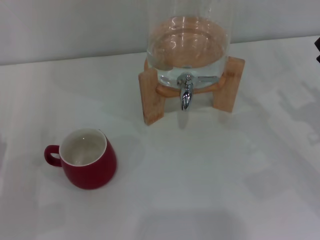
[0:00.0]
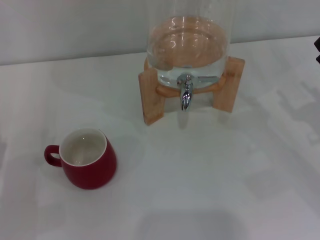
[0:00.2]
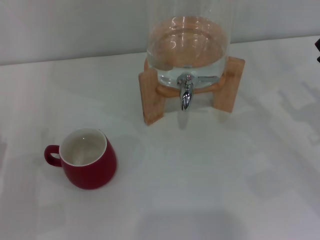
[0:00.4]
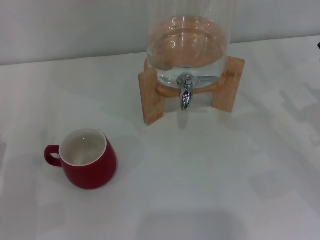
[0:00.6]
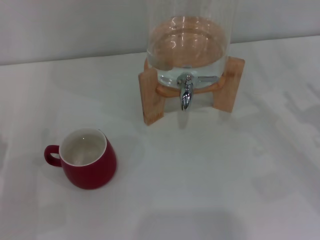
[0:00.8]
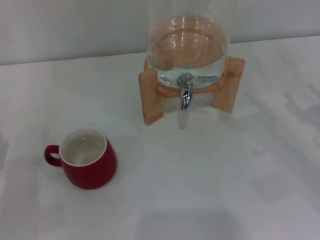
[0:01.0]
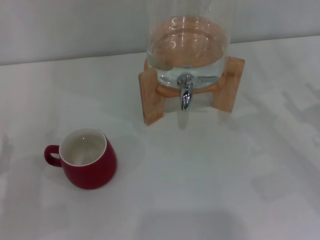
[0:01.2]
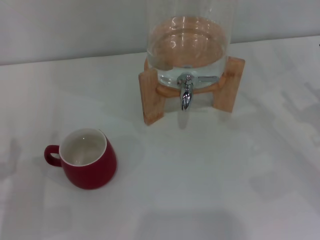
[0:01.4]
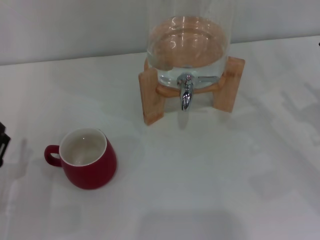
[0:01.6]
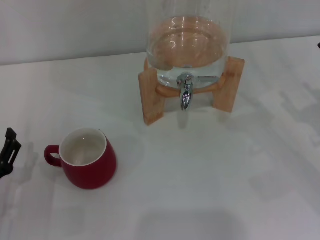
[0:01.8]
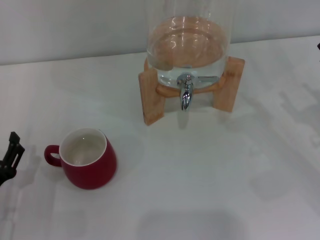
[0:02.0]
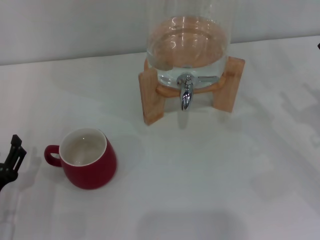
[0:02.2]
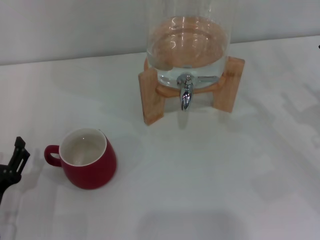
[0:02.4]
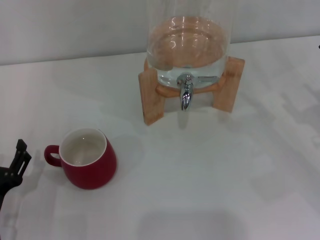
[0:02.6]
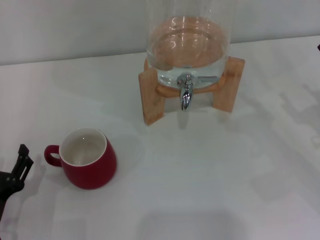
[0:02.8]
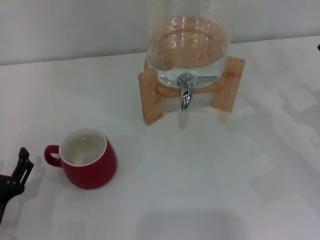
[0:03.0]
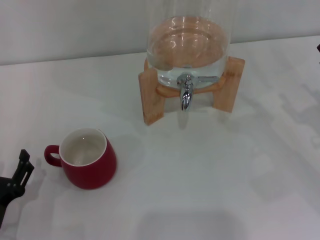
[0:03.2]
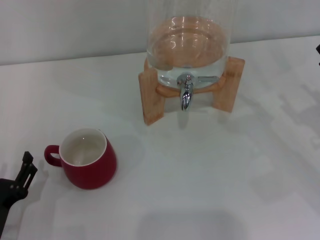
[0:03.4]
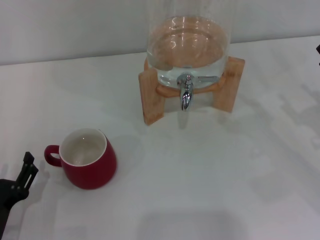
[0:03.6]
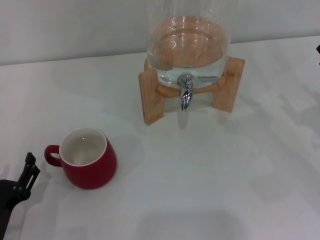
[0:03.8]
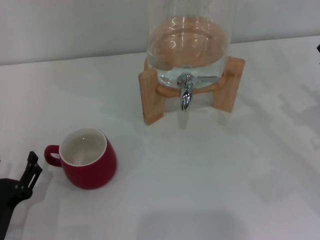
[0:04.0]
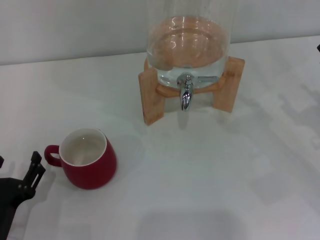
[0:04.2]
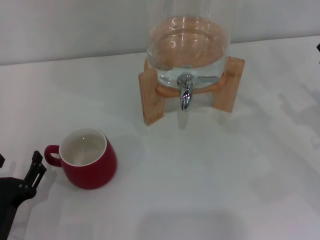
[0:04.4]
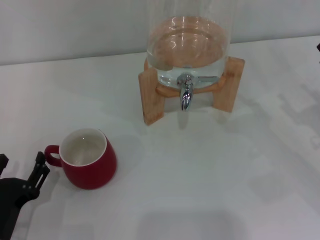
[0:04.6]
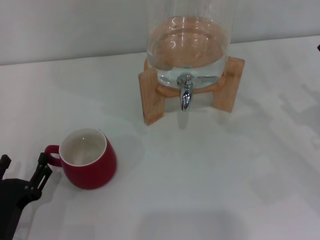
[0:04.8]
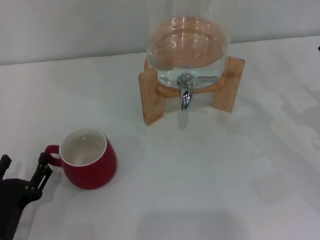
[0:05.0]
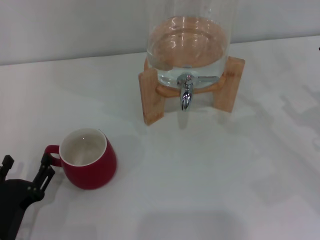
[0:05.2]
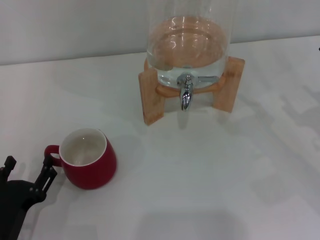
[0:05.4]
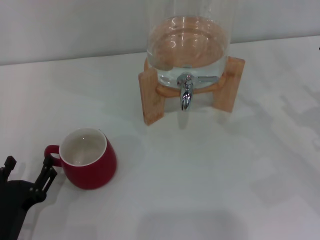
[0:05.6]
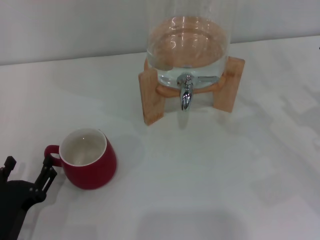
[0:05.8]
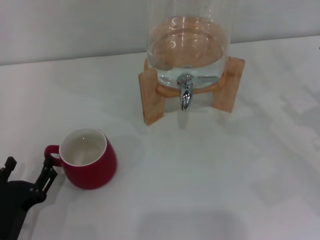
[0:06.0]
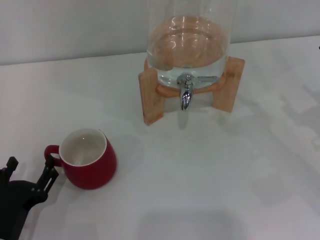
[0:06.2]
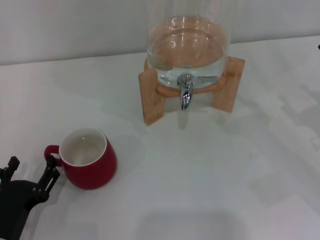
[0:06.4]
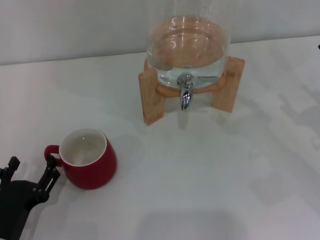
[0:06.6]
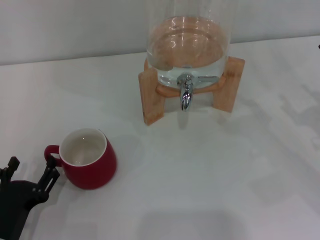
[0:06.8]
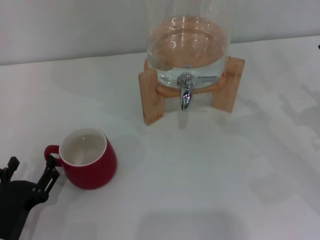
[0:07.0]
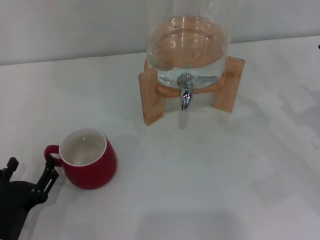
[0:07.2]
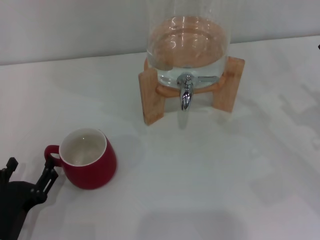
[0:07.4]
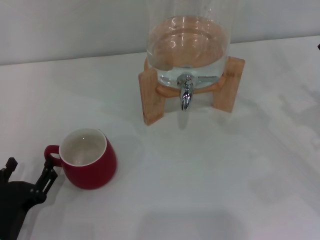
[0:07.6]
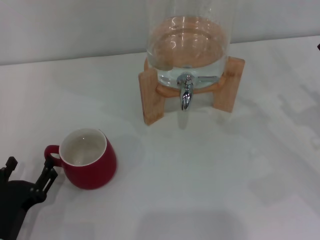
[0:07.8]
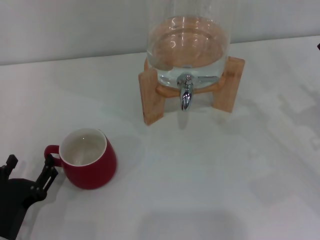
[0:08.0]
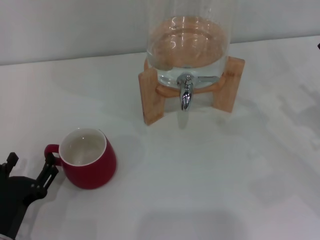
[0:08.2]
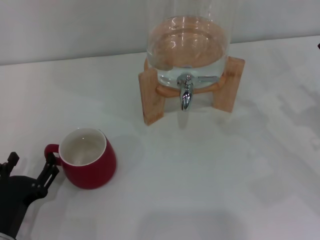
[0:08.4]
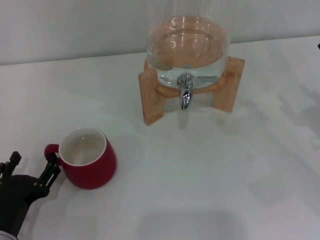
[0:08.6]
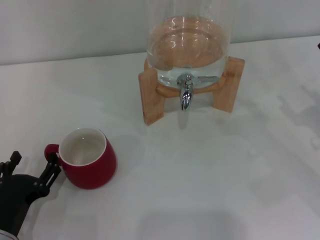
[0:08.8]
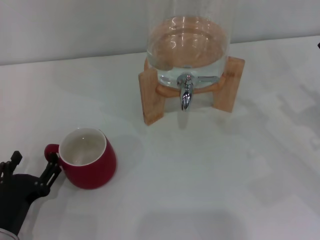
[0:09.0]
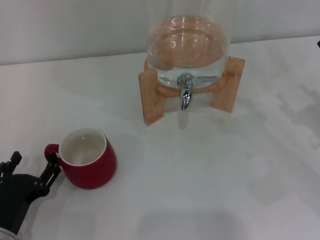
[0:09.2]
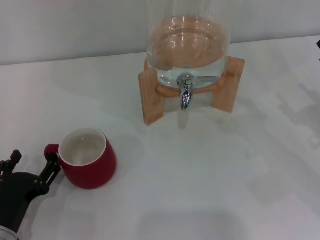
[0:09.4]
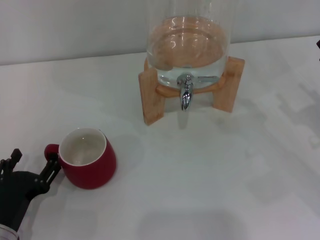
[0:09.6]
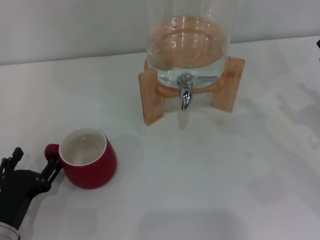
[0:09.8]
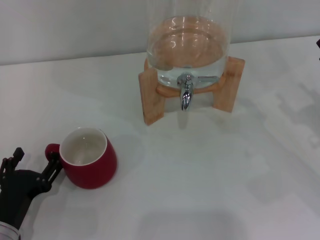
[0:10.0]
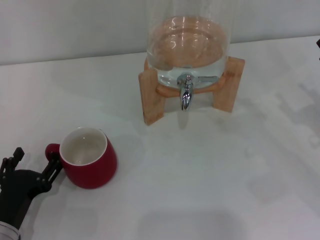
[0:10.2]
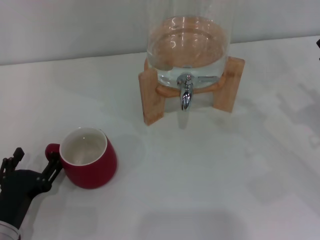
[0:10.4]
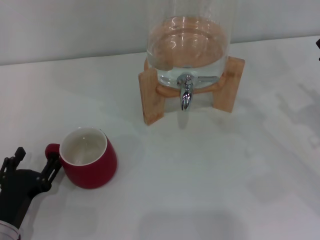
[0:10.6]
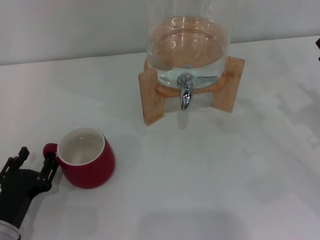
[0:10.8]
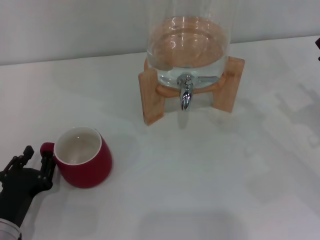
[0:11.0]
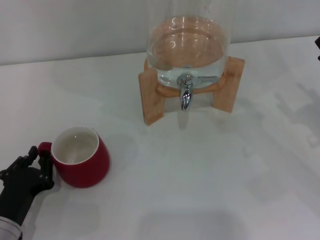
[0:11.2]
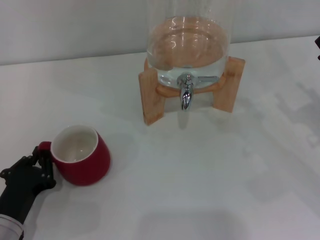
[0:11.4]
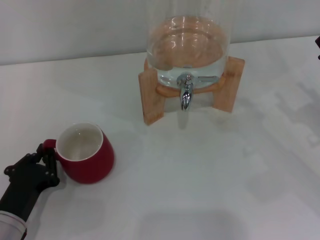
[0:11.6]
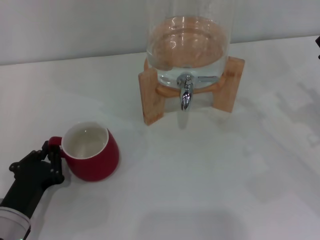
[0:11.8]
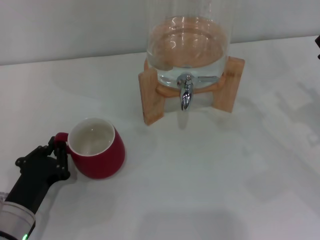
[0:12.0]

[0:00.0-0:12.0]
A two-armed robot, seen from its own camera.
Task of the whole recording: the left gripper pick up the red cup and place it horizontally under the faucet, the right gripper turn on the faucet to fill the cup, and then turn off the faucet.
0:01.6 to 0:03.0: The grippers move only a little.
0:03.0 to 0:04.4: Neither gripper changes place.
0:04.4 to 0:07.6: Neither gripper changes place.
0:07.6 to 0:09.0: Both grippers stay about where they are.
0:09.0 to 0:10.4: The two grippers keep their place.
0:10.4 to 0:12.0: The left gripper closes.

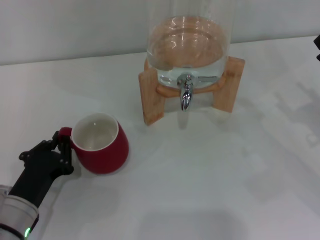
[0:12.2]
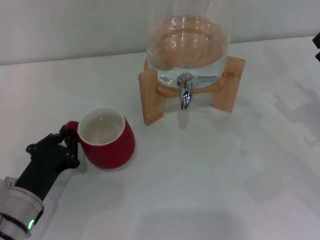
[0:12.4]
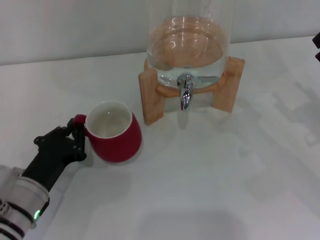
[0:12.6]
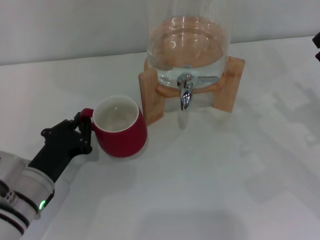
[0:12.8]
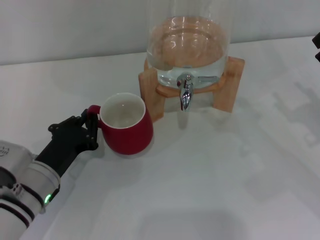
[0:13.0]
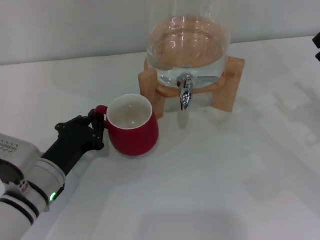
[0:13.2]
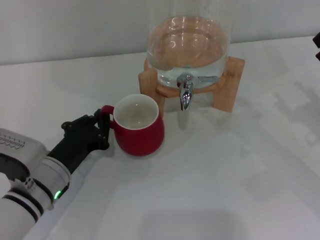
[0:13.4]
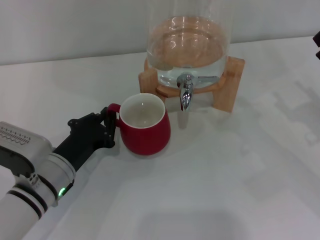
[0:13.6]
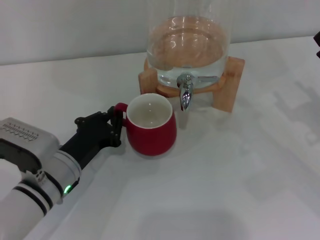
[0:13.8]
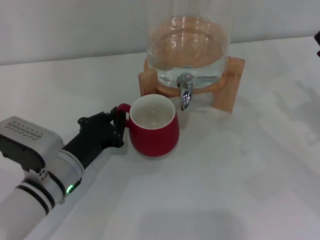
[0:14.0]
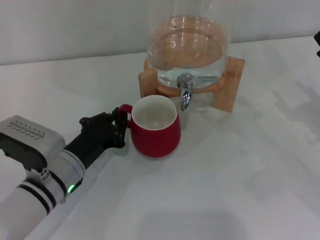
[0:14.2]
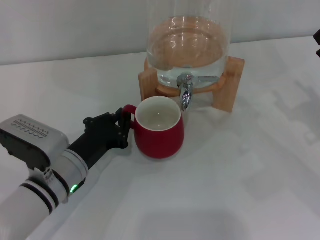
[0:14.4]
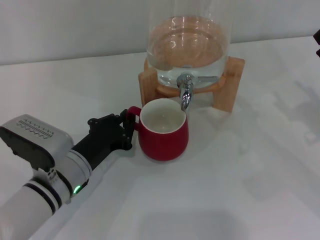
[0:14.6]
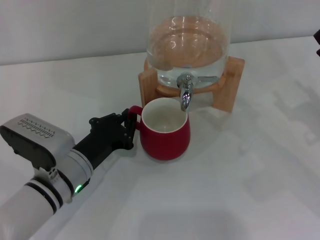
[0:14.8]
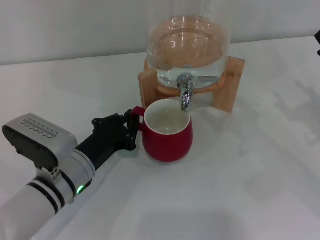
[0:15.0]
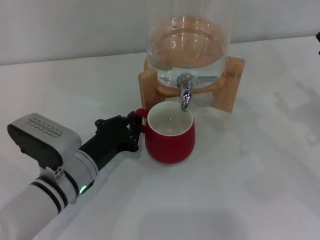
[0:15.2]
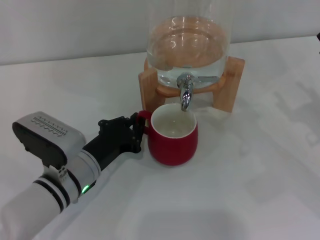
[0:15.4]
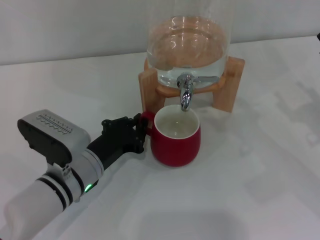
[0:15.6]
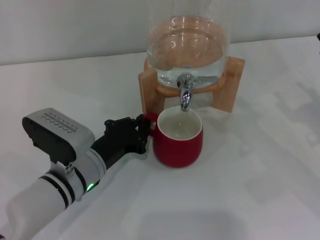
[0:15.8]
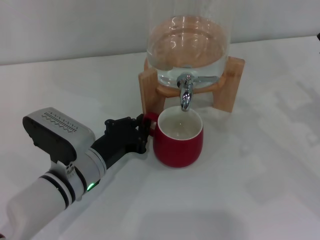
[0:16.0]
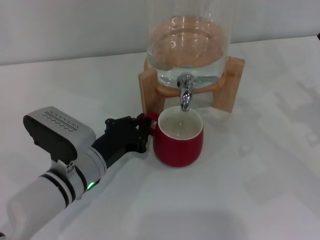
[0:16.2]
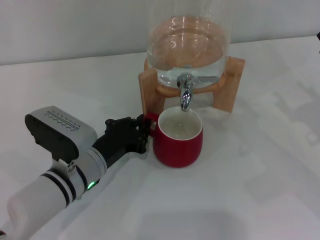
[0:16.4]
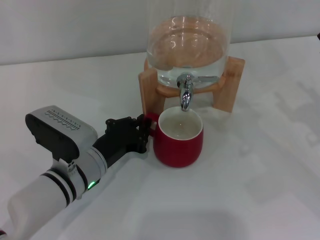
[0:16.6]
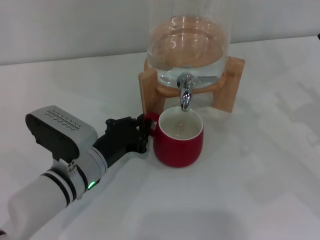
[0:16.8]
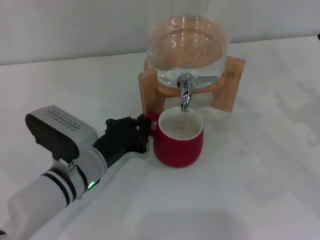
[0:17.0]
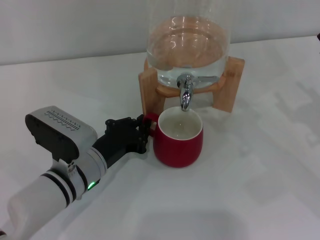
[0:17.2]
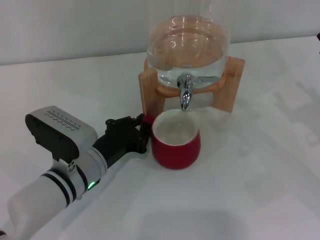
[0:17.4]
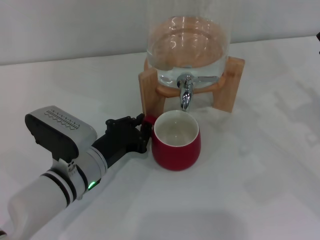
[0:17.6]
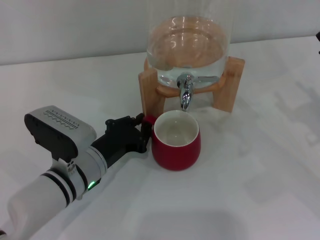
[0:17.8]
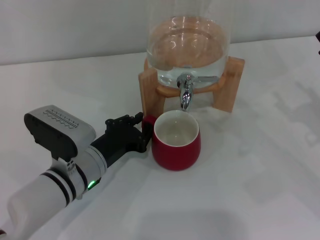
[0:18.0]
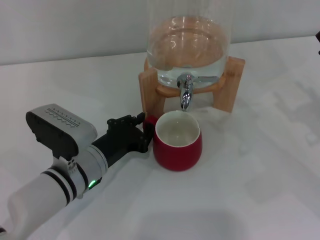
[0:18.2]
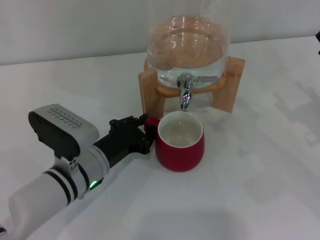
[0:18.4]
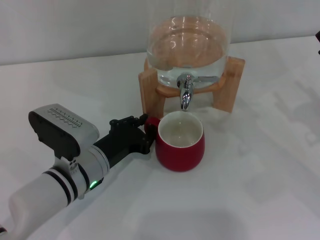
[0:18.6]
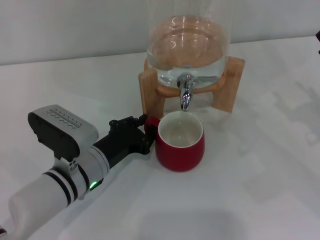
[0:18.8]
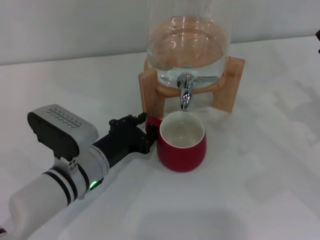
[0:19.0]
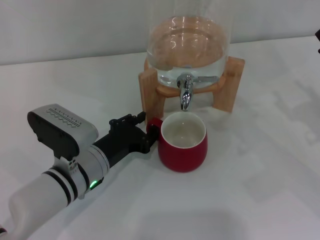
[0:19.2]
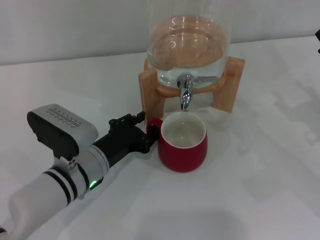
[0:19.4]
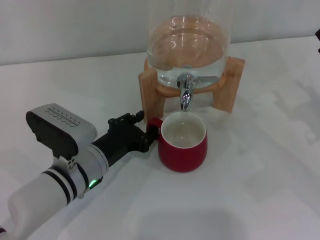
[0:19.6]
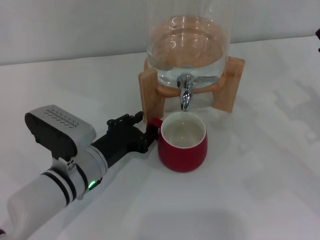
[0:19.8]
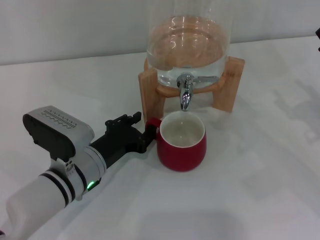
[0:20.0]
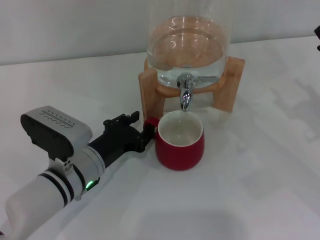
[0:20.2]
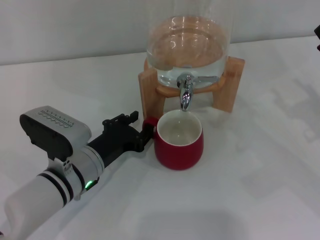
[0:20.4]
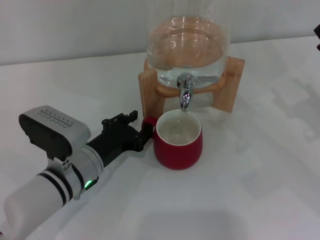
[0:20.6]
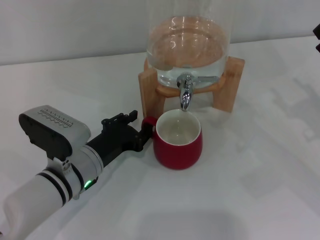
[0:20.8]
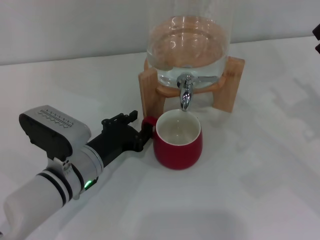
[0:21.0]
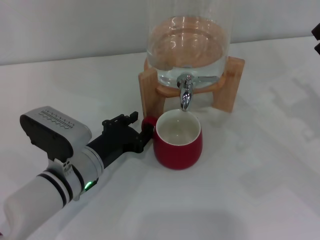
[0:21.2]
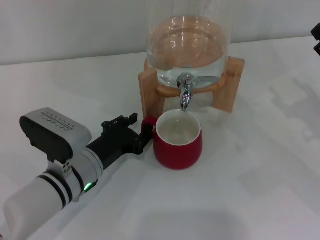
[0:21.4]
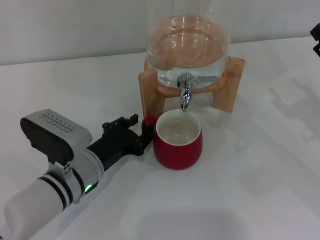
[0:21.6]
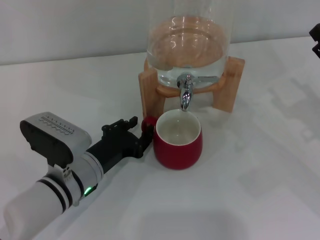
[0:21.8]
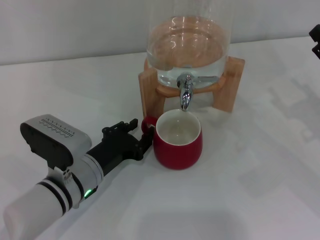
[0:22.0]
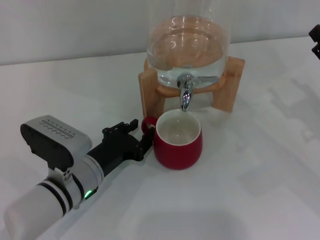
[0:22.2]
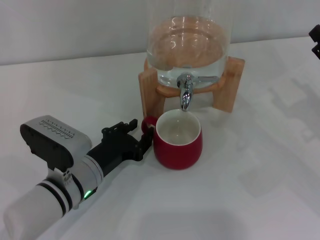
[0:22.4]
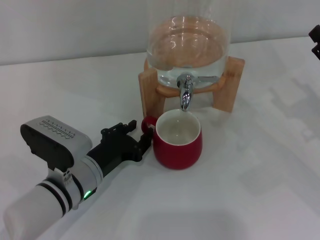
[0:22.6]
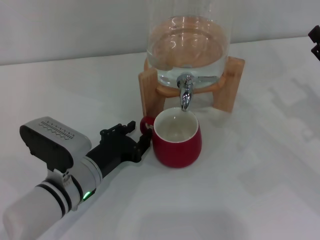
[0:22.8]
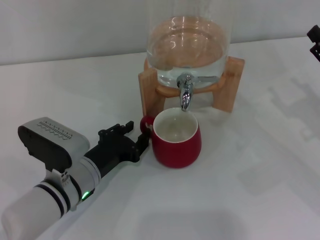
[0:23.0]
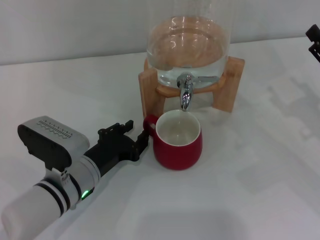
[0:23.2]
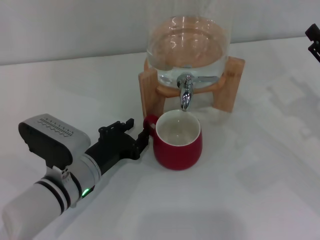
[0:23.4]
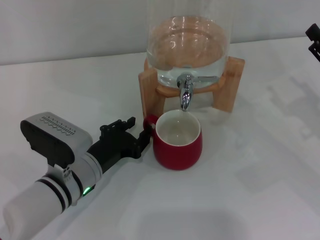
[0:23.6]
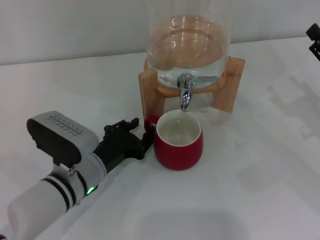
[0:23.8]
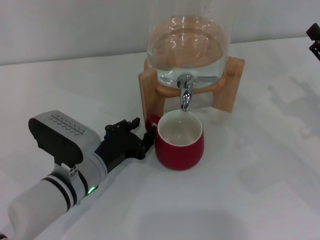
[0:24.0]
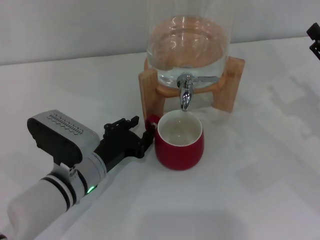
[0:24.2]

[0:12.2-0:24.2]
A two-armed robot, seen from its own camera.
Task of the whole recording: the left gripper pick up the red cup and place it horizontally under the faucet, the right gripper turn on the faucet to fill the cup, and then turn off the faucet.
Step, 0:12.2 to 0:23.4: Move the cup beneath the water dispenser nozzle with the left gripper.
0:12.2 to 0:13.8: The left gripper heads to the right and forward, covering roughly 10 cm.
0:13.8 to 0:16.6: The grippers stay close to where they were, moving slightly.
0:16.6 to 0:21.2: The two grippers keep their place.
0:21.2 to 0:22.6: The two grippers keep their place.
0:22.6 to 0:24.2: Both grippers stay put.
